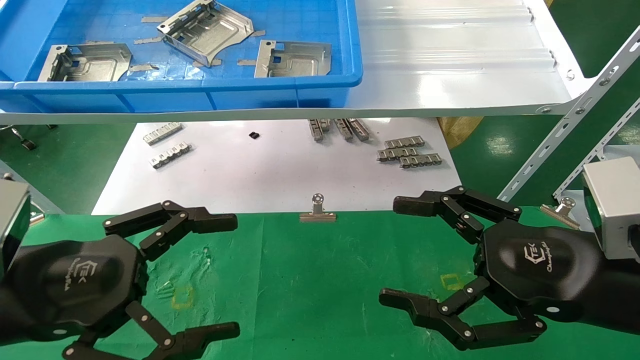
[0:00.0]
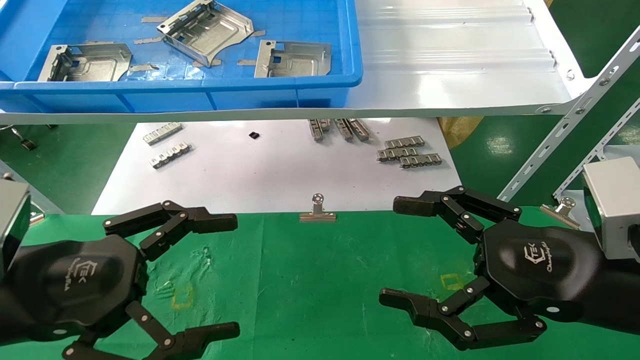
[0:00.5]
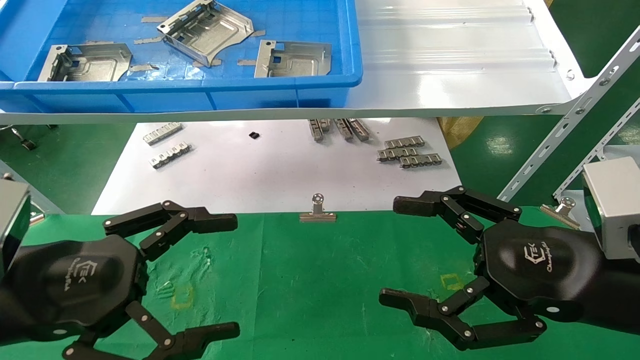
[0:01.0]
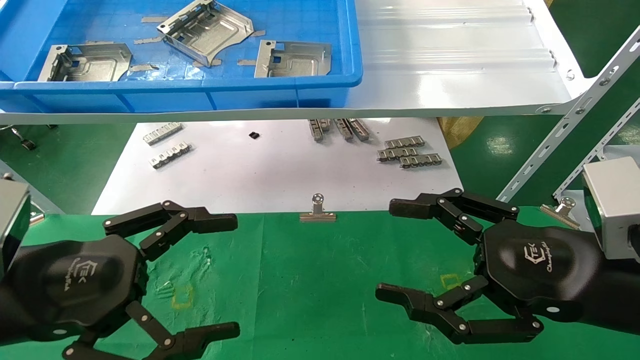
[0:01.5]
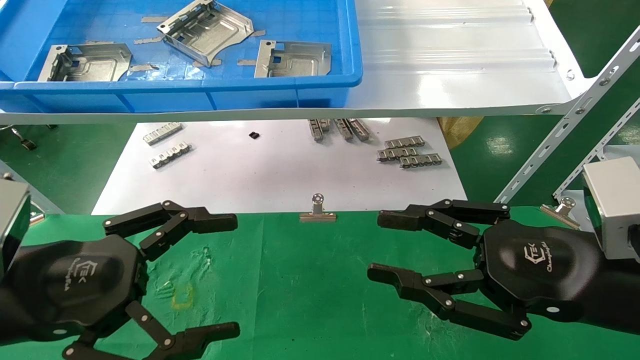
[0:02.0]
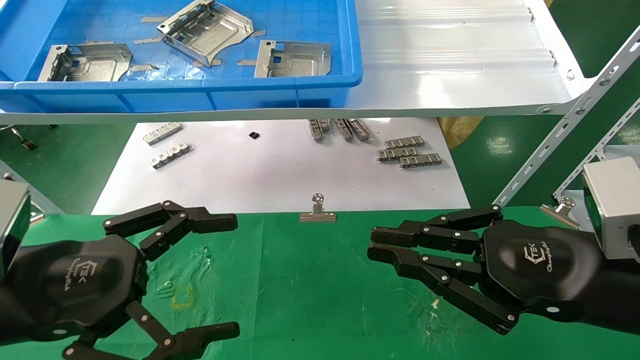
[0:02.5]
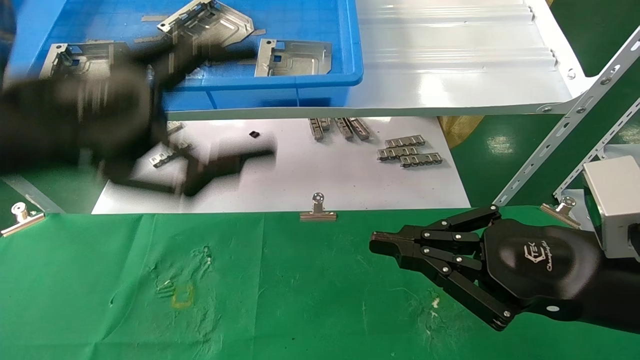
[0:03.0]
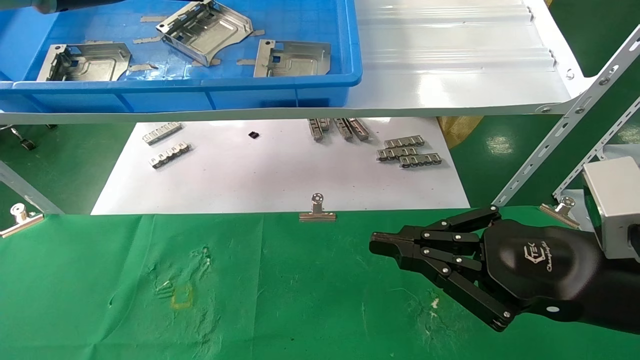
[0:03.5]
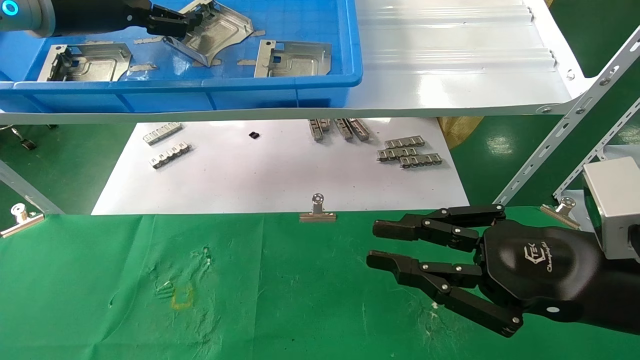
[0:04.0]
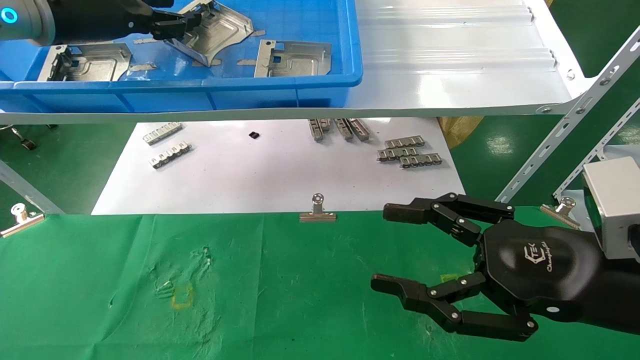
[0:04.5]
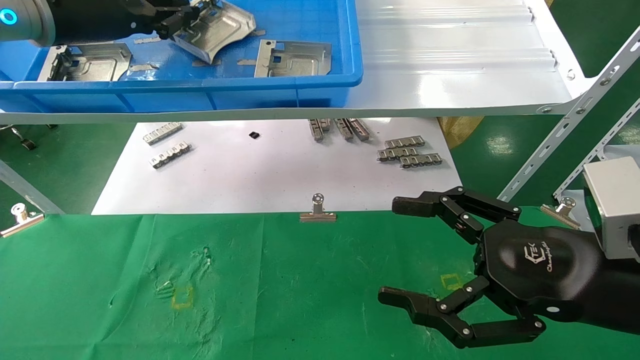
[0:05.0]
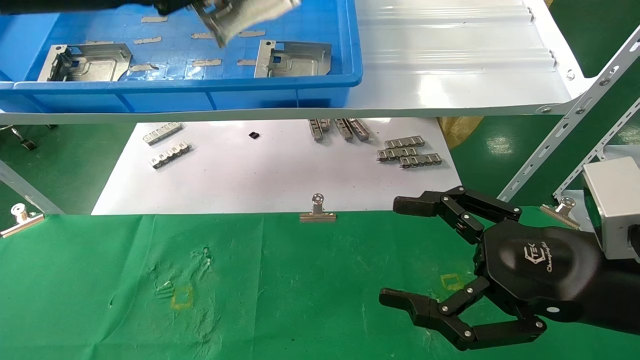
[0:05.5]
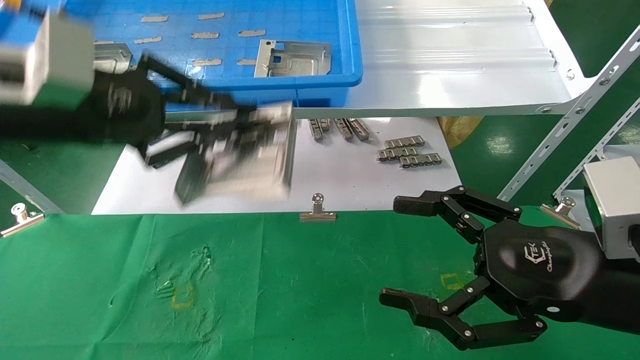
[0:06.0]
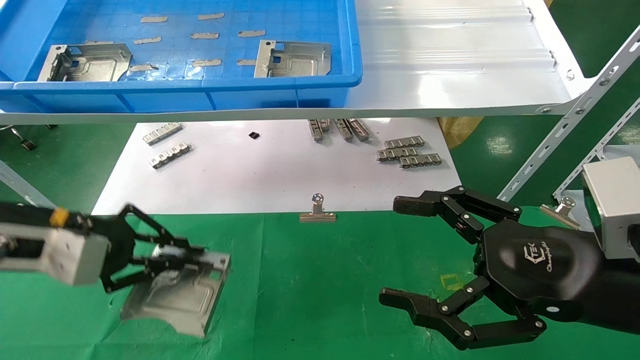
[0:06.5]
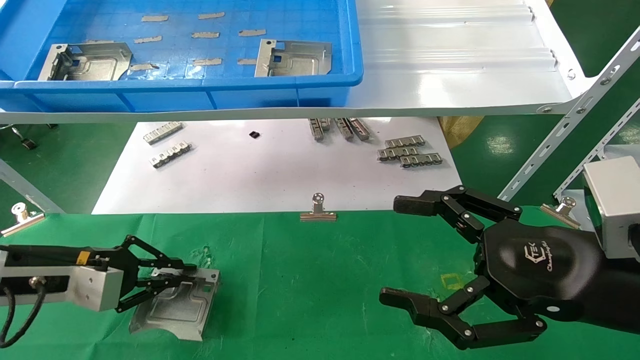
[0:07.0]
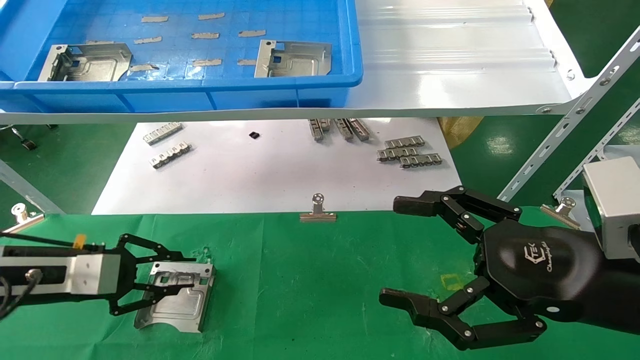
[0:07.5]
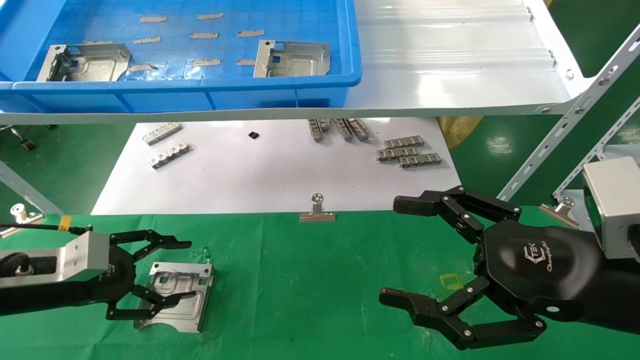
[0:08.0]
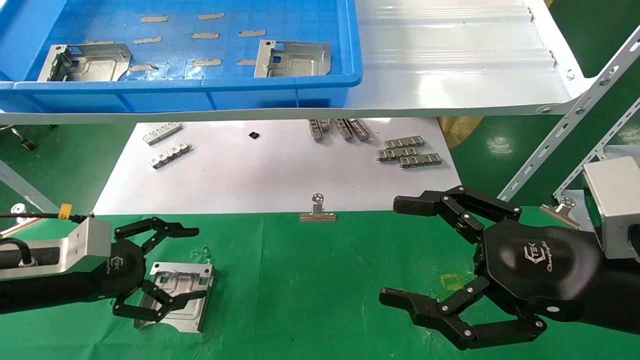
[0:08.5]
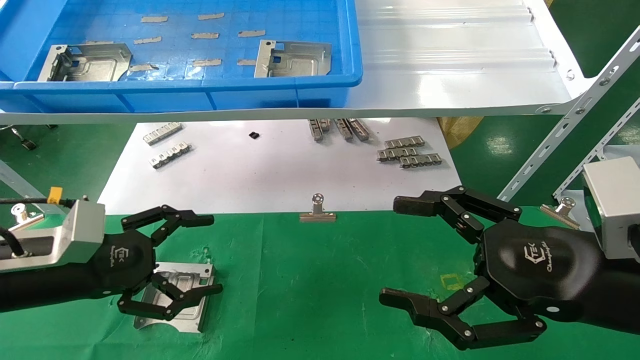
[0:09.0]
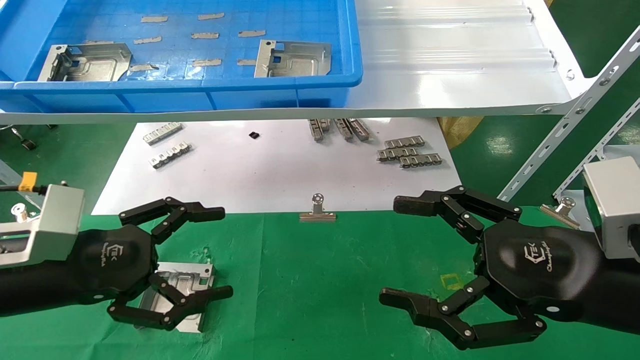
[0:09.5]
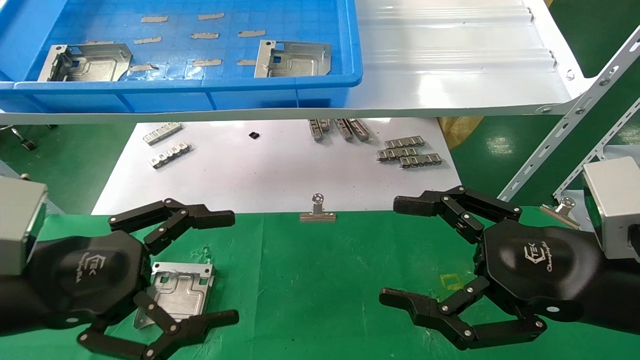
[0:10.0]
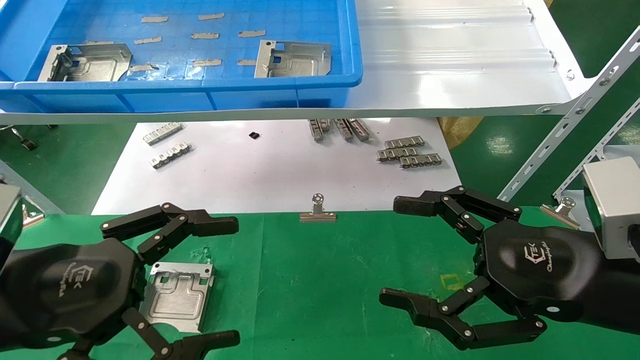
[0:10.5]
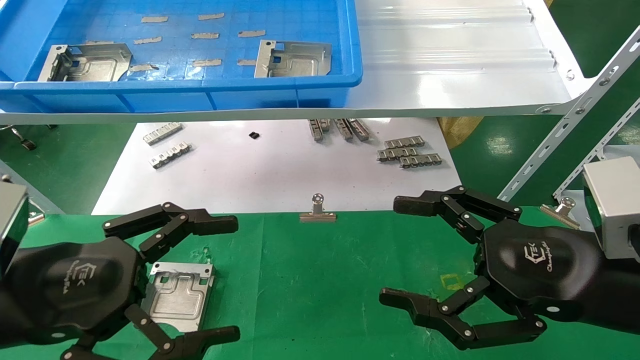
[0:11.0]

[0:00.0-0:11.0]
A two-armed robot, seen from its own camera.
Task of the whole recording: use the mechanical arm to pick up the parts and place them on the table.
Step, 0:03.0 to 0:04.5: Pick up the hard drive bracket from the feeding area.
Step, 0:05.0 to 0:07.0: Place the hard drive bracket into the box.
0:00.0 to 0:02.0: The right gripper closes its fingers.
0:02.0 to 0:03.5: The left gripper heads upward and forward, covering some 30 cm. Meanwhile the right gripper closes up.
0:03.5 to 0:05.5: The left gripper is displaced backward by roughly 5 cm, and closes its fingers. Meanwhile the right gripper opens its fingers.
0:05.5 to 0:07.5: The left gripper shifts roughly 30 cm downward.
0:07.5 to 0:09.0: The left gripper shifts by some 5 cm, and opens up.
0:09.0 to 0:11.0: The left gripper travels backward by some 10 cm.

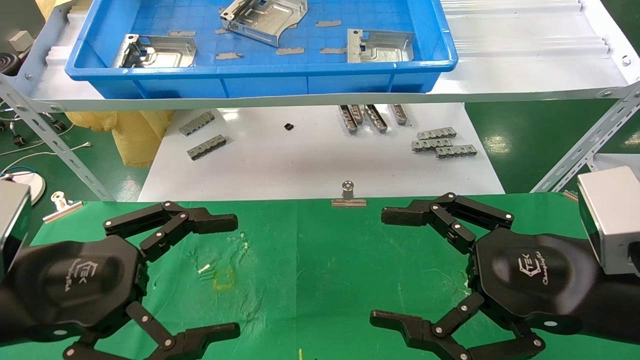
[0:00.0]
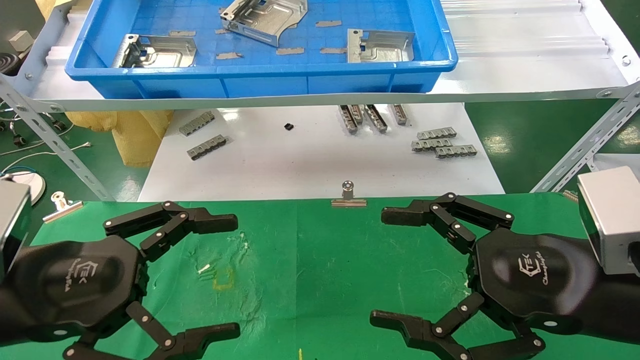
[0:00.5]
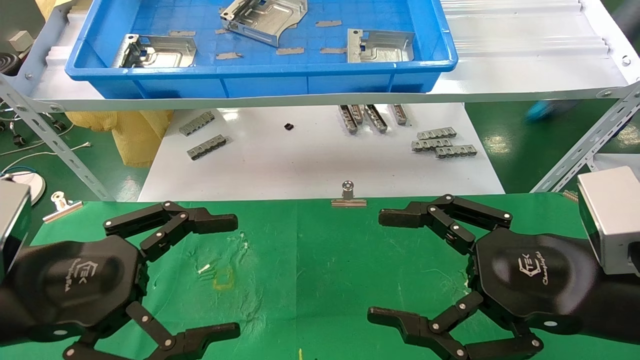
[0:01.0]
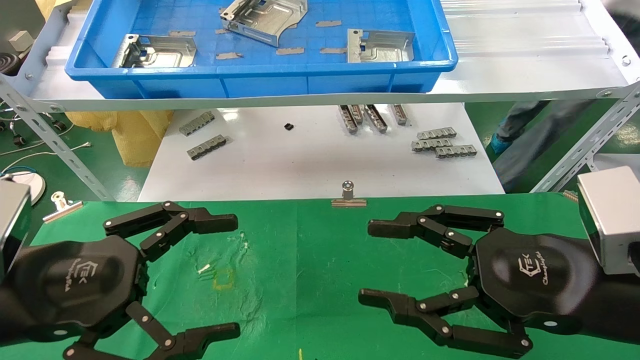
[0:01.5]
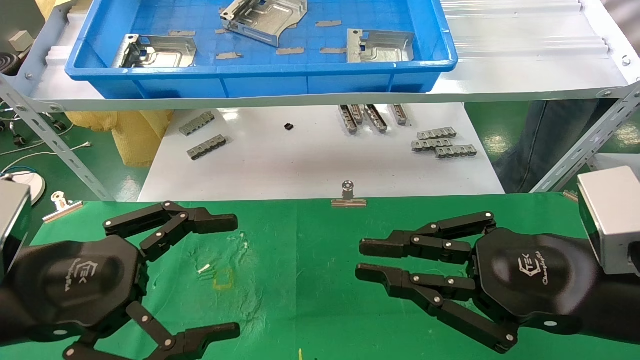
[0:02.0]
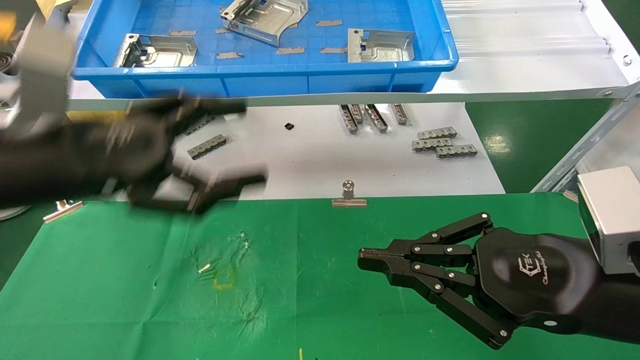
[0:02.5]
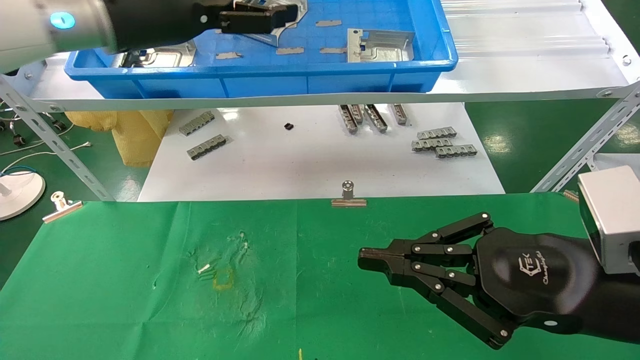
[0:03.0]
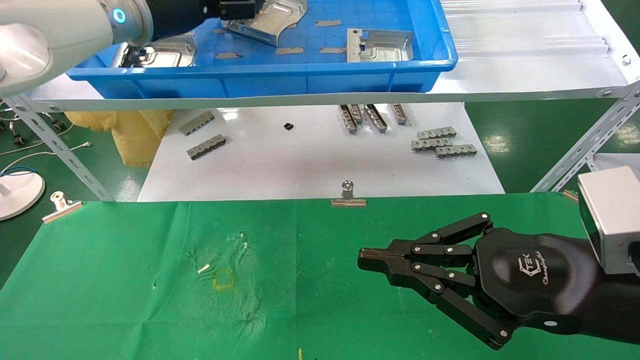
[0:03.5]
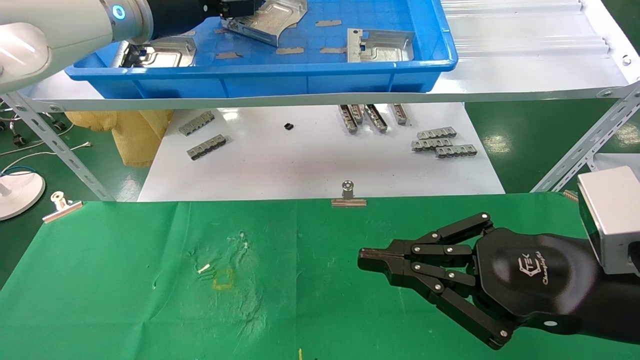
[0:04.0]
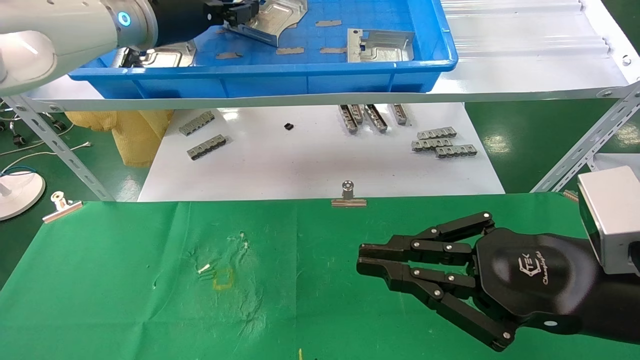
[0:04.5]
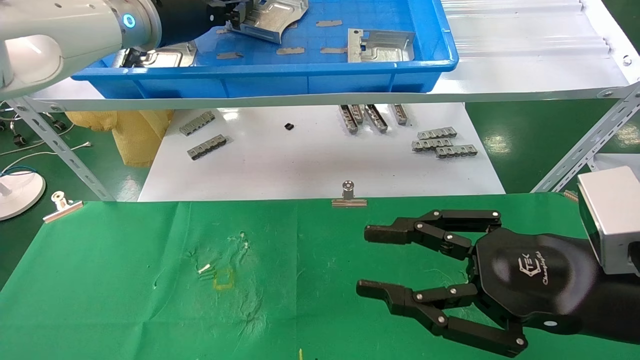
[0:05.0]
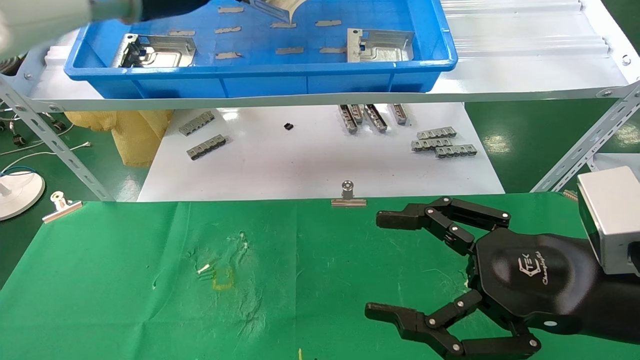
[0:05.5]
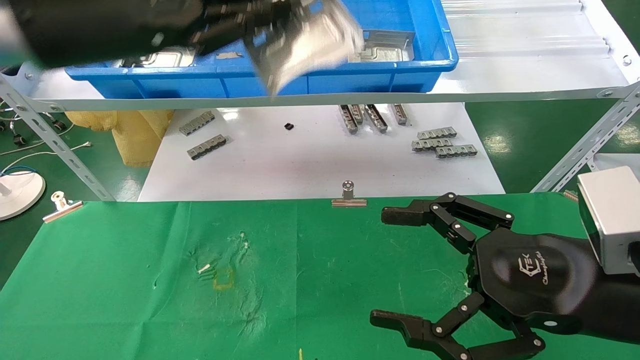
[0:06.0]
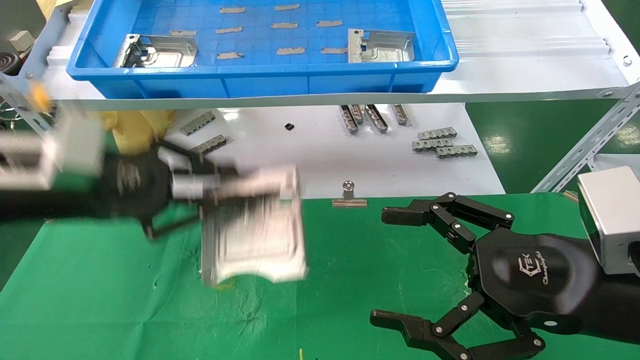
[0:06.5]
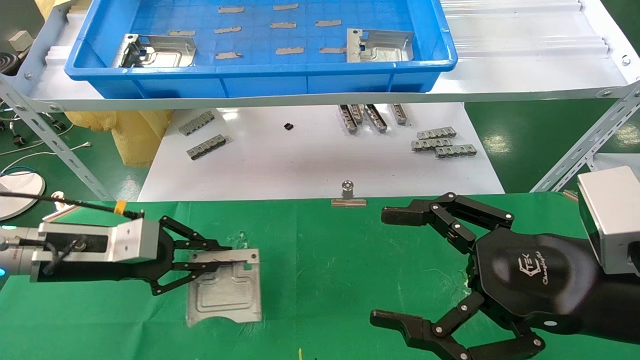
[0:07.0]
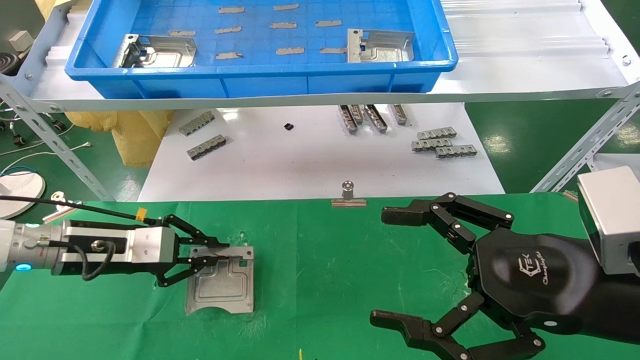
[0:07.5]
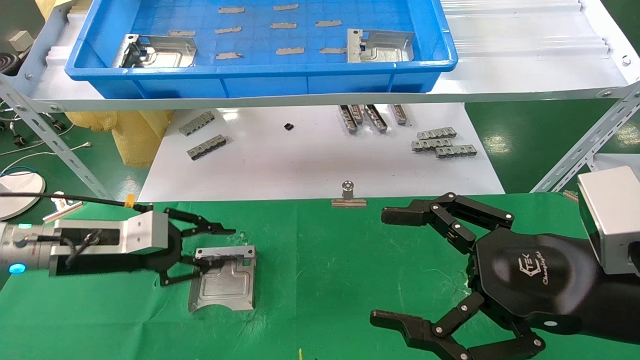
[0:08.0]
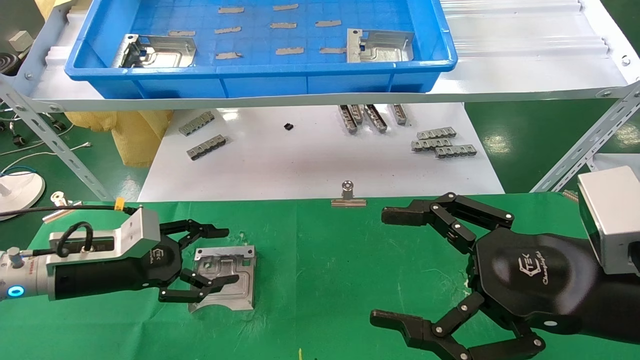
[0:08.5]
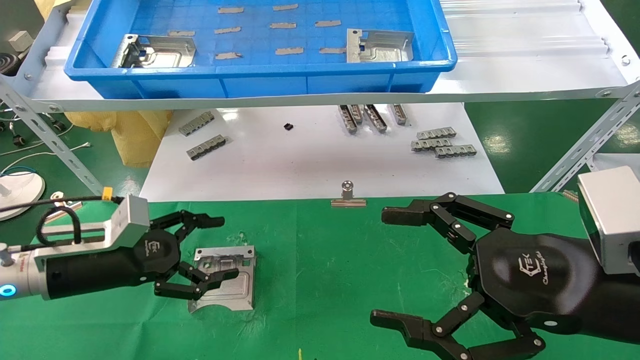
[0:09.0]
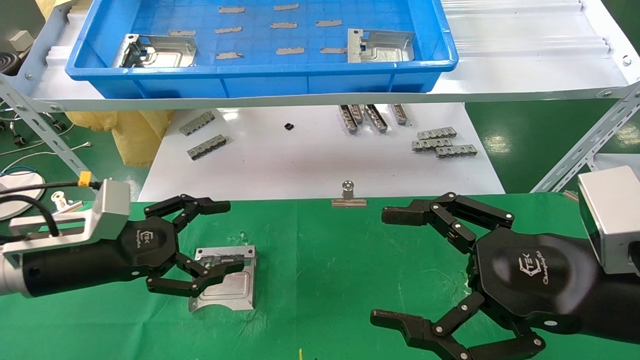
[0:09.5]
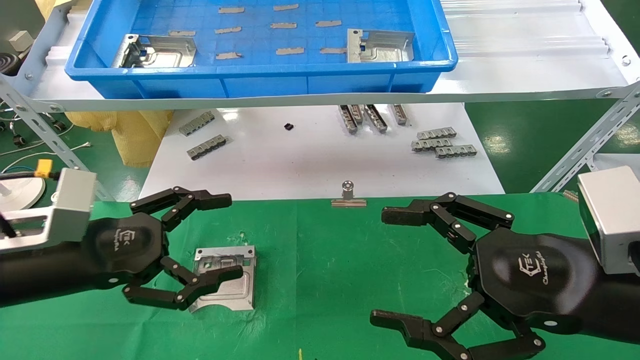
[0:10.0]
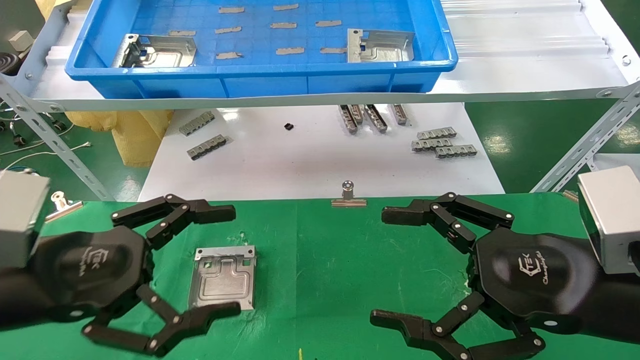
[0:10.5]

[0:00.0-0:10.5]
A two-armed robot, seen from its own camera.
Task of the whole recording: use the mechanical arm to pick up the parts and place them on the table.
Step, 0:02.5 to 0:04.5: Pick up the hard drive bracket from the feeding area.
Step, 0:05.0 to 0:07.5: Place the hard drive bracket into the box.
0:00.0 to 0:02.0: The right gripper closes up.
0:02.0 to 0:04.0: The left gripper shifts roughly 35 cm forward and upward.
0:04.0 to 0:06.5: The left gripper moves downward, backward and to the left, about 25 cm, and closes its fingers; the right gripper opens its fingers.
0:06.5 to 0:08.5: The left gripper heads downward, covering about 15 cm, and opens up.
0:08.5 to 0:10.5: The left gripper shifts roughly 15 cm backward and upward, and opens up.
